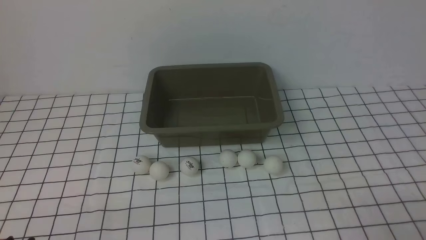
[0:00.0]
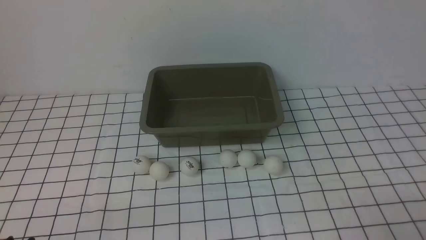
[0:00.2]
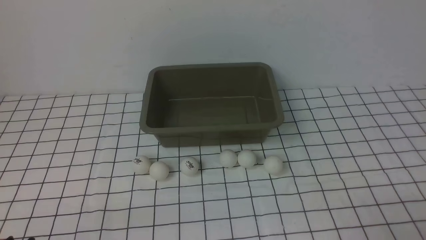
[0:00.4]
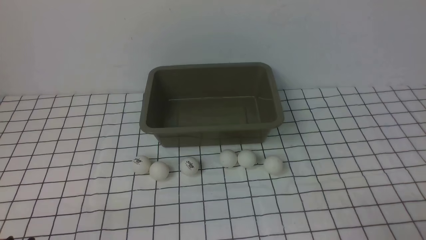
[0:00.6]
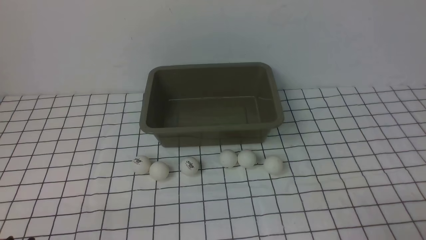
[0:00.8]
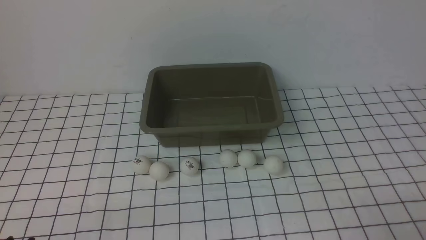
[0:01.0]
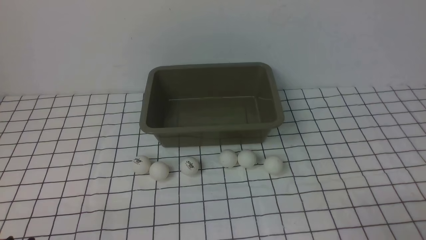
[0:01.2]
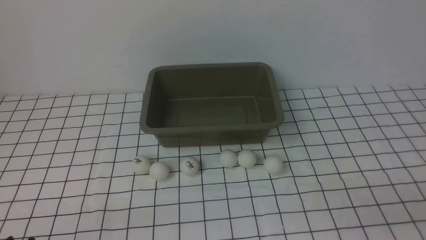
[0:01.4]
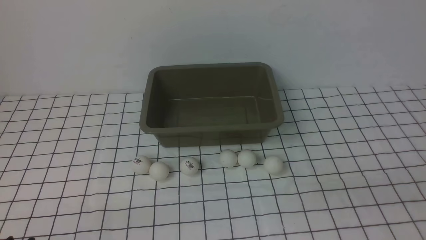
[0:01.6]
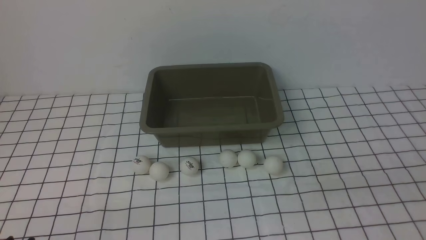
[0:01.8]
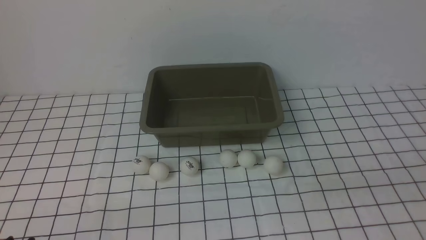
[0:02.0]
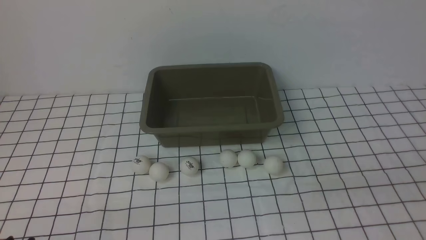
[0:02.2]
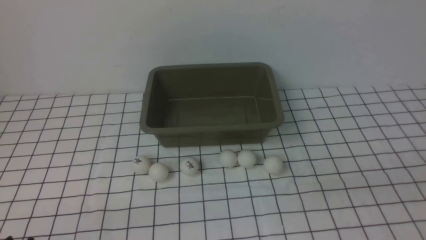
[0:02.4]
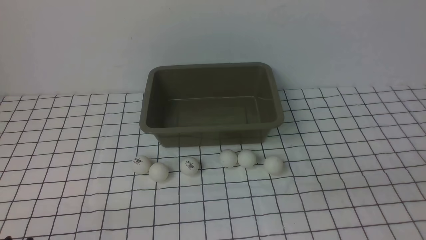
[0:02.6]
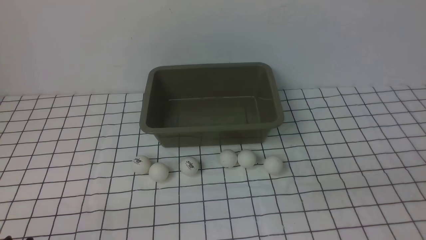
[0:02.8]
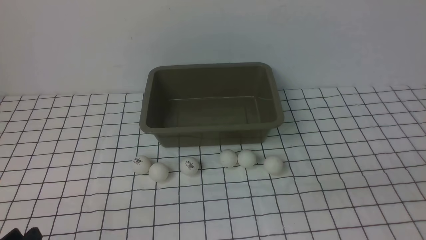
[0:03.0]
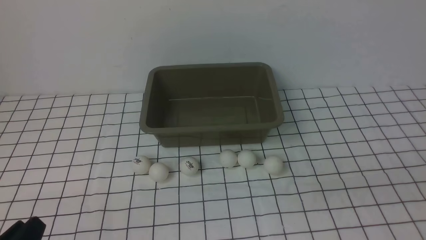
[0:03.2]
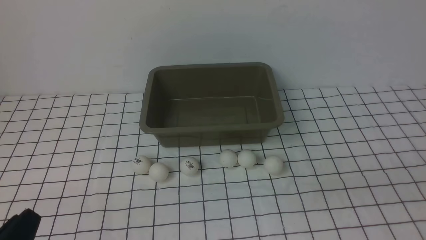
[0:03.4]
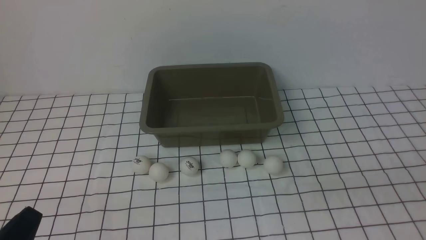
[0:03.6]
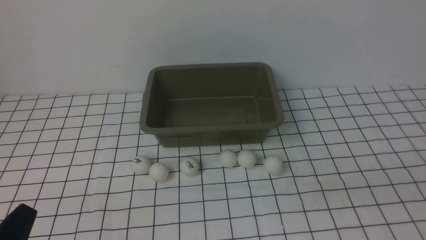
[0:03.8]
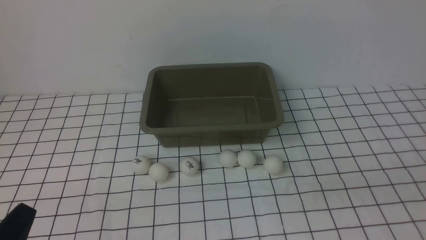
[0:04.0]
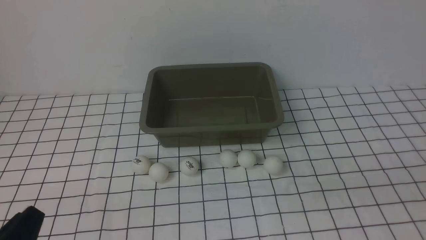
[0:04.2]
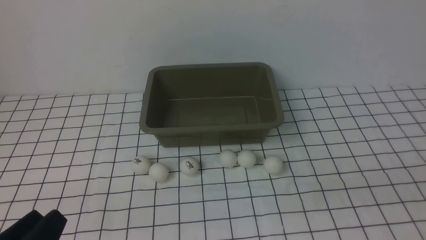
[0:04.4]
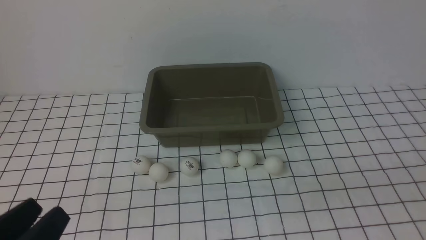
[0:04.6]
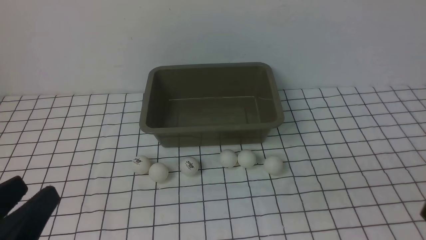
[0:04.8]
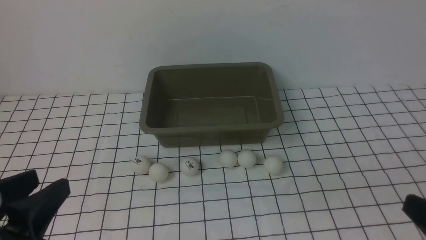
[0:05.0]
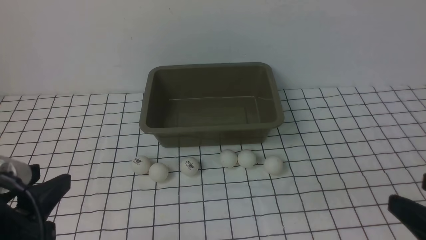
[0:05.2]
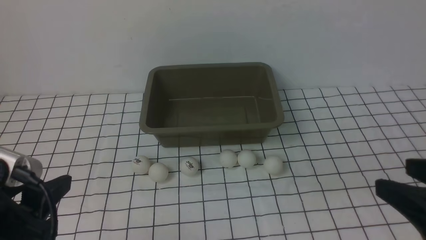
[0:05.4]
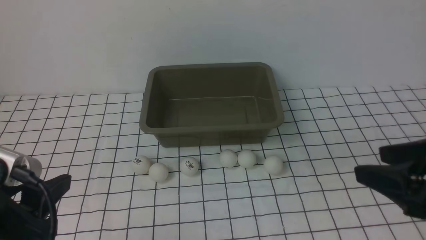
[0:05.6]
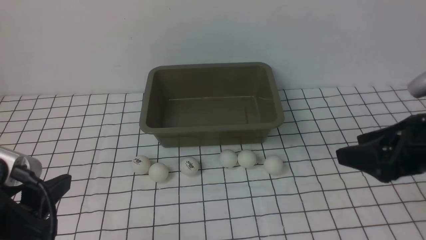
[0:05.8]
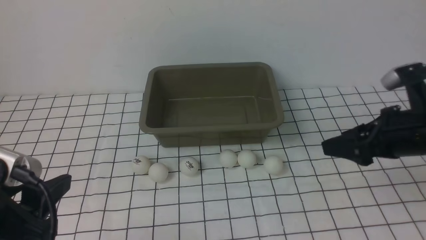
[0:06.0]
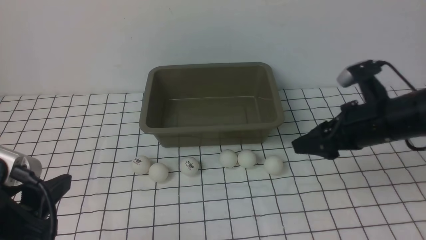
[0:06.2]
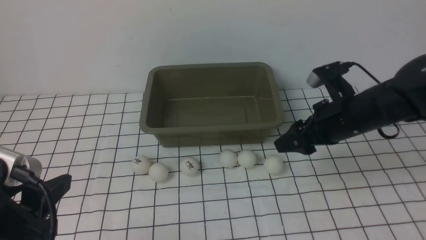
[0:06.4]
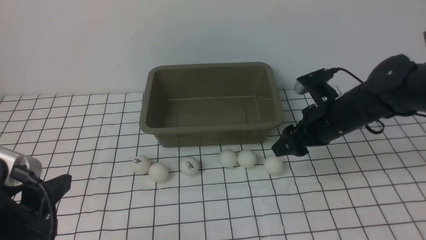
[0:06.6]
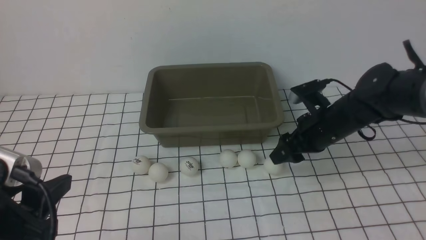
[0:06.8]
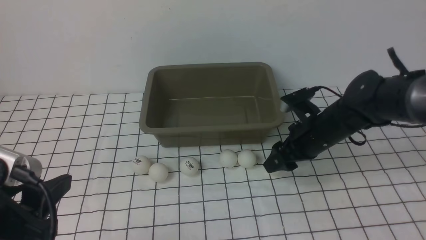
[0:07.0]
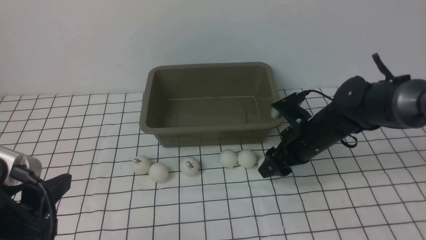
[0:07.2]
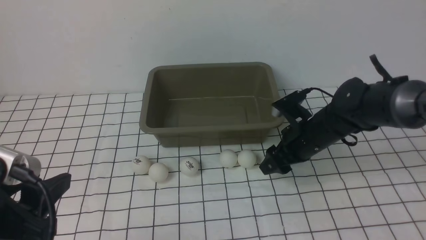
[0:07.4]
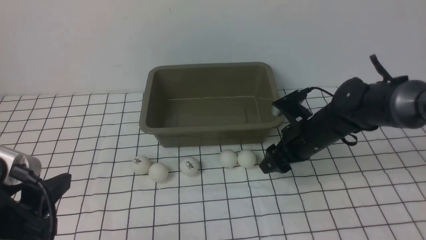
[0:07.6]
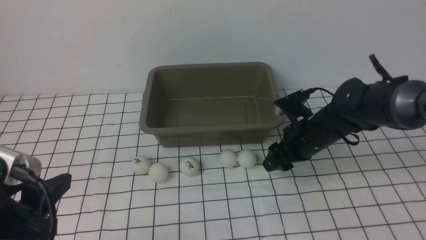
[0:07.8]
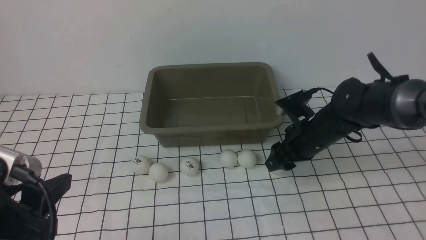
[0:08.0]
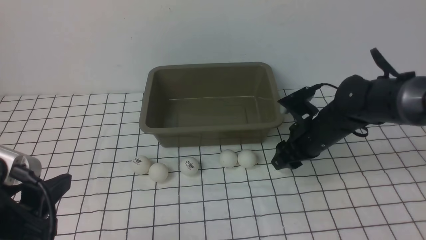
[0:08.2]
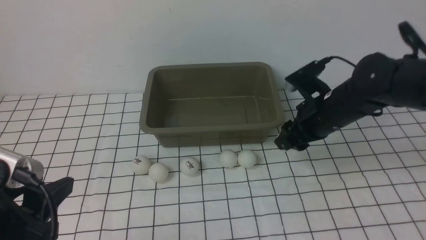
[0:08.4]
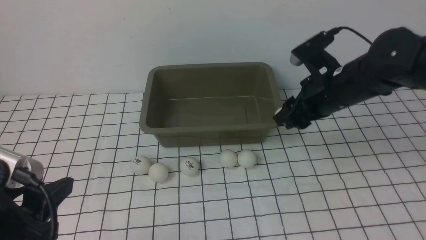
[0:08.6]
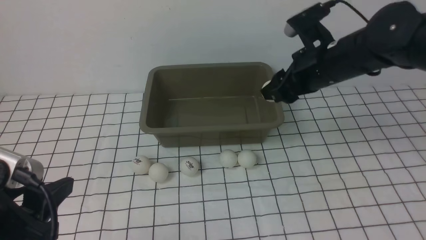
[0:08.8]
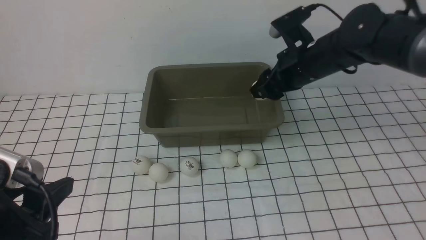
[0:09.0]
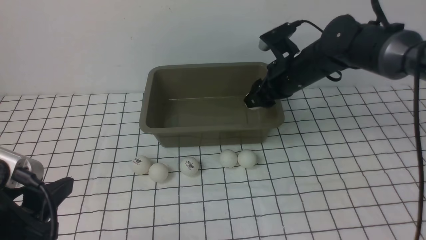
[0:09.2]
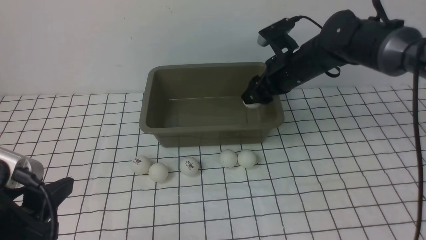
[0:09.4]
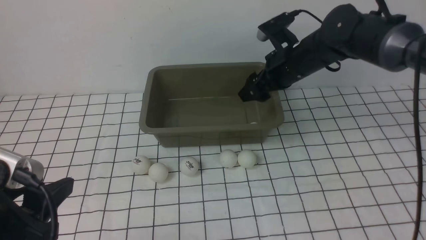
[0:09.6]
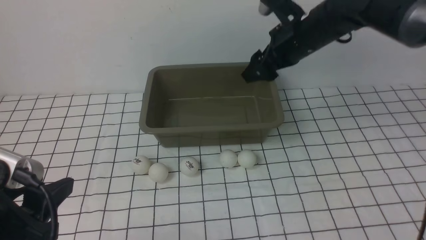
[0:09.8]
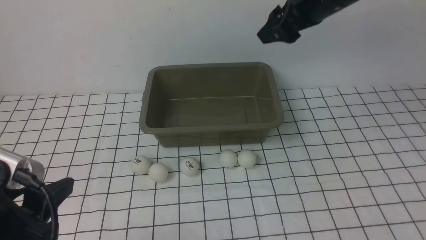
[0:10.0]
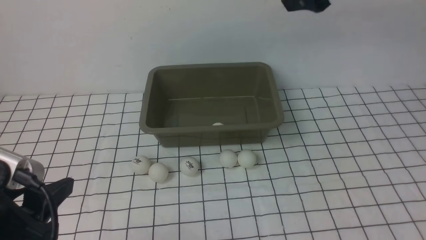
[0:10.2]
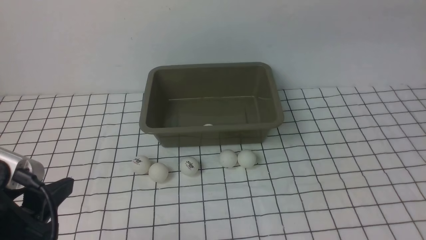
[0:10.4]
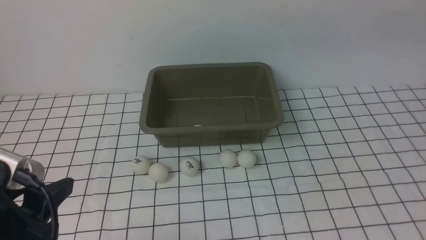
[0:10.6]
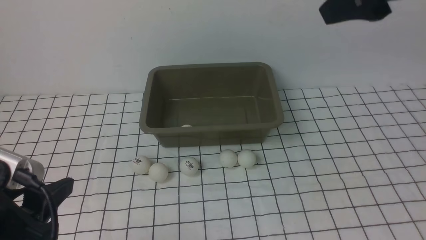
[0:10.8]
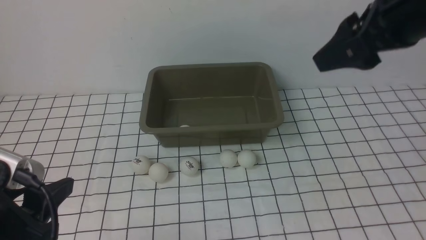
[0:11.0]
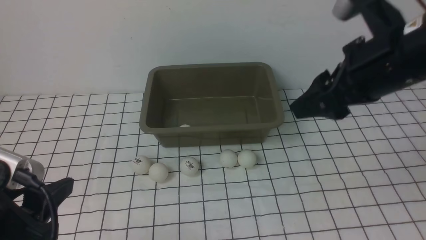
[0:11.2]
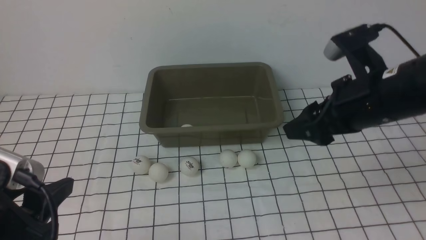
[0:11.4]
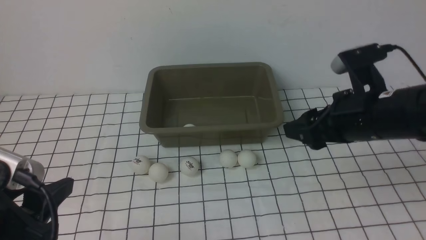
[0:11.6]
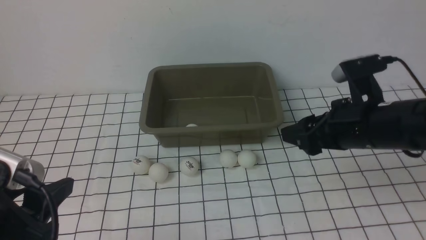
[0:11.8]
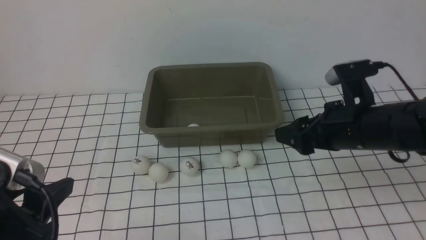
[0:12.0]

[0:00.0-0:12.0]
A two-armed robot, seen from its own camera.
Step, 0:00.0 to 0:08.2: use the right arm to clamp the table tennis ball closest to it.
Step, 0:08.6 to 0:09.6: use the right arm to put the table tennis ball into the box.
0:04.4 to 0:06.0: The right gripper moves forward, about 20 cm, while the left gripper shifts roughly 10 cm forward and upward.
0:06.0 to 0:07.6: The right gripper moves downward, forward and to the left, about 20 cm.
0:07.6 to 0:09.0: The right gripper is displaced upward by some 10 cm.
0:09.0 to 0:10.4: The right gripper is displaced upward and backward by approximately 25 cm.
0:10.4 to 0:12.0: The right gripper shifts about 25 cm downward.

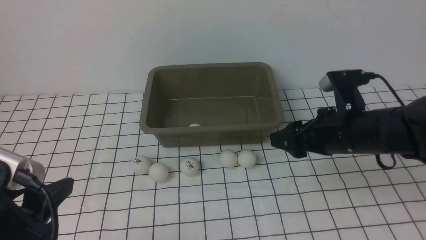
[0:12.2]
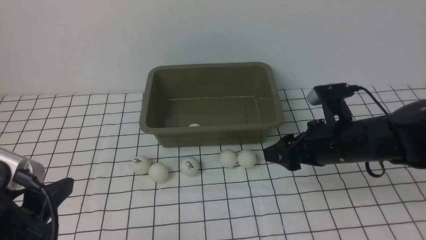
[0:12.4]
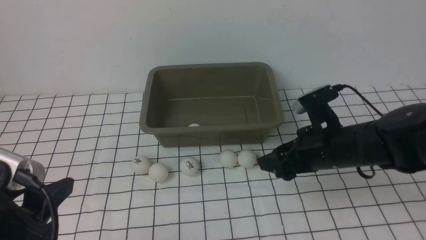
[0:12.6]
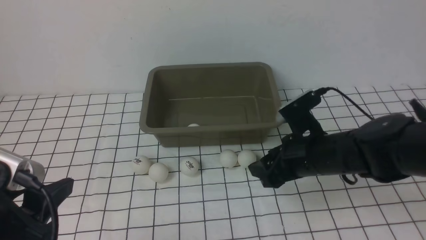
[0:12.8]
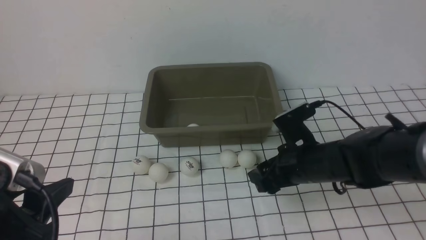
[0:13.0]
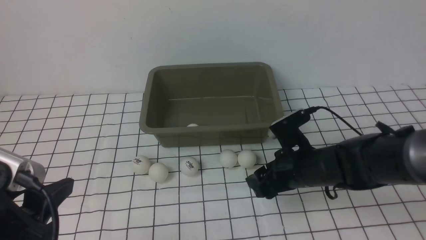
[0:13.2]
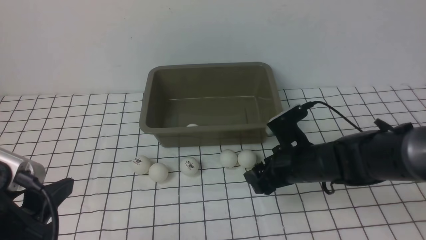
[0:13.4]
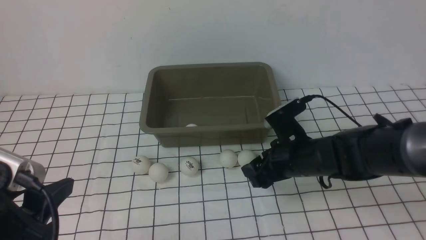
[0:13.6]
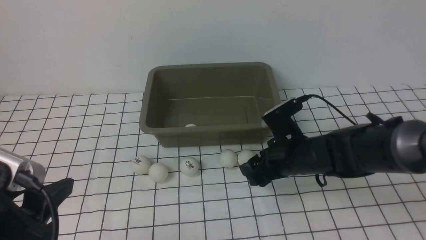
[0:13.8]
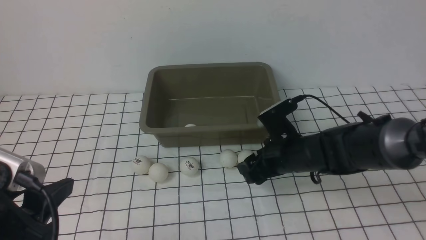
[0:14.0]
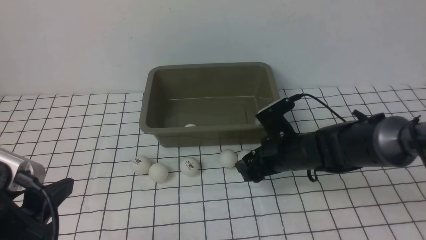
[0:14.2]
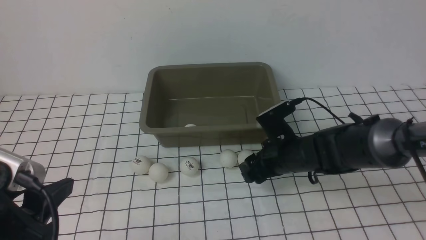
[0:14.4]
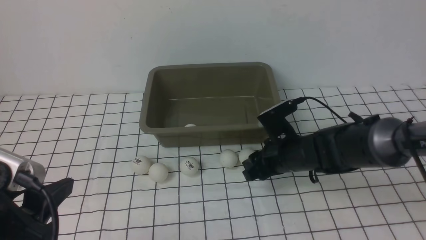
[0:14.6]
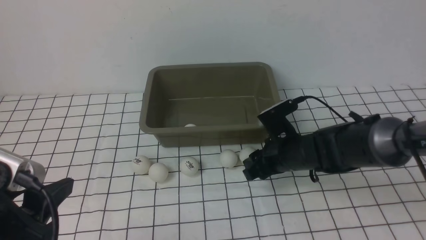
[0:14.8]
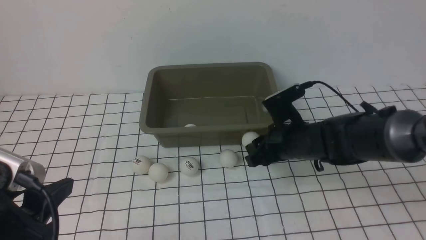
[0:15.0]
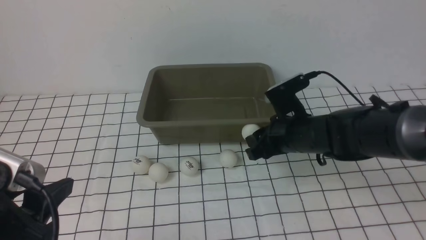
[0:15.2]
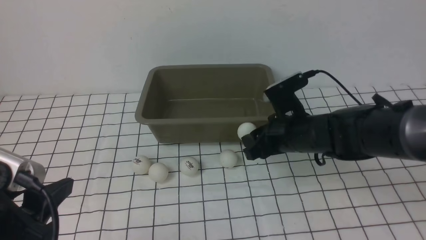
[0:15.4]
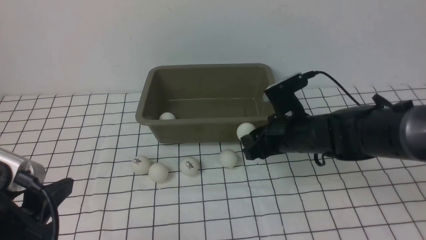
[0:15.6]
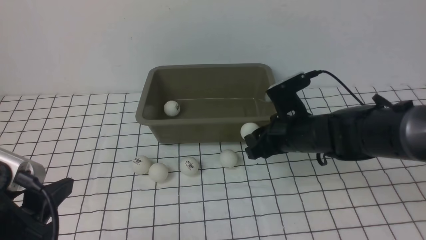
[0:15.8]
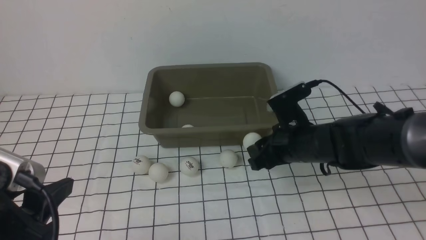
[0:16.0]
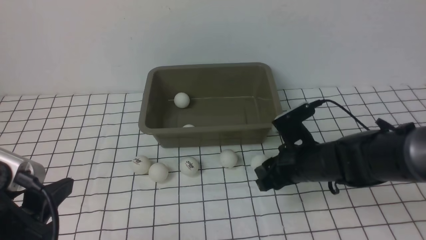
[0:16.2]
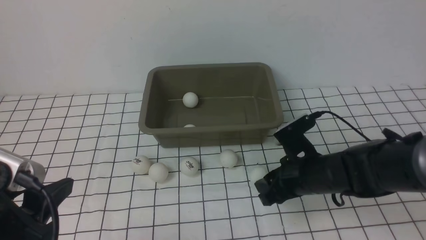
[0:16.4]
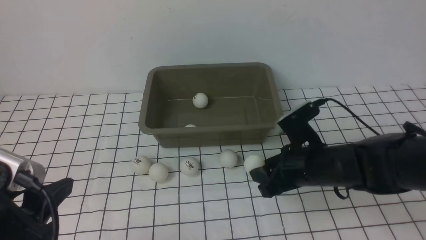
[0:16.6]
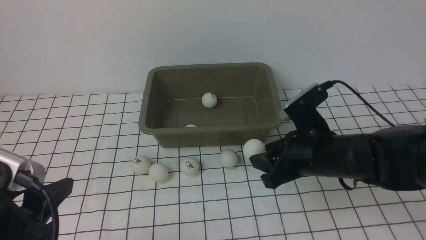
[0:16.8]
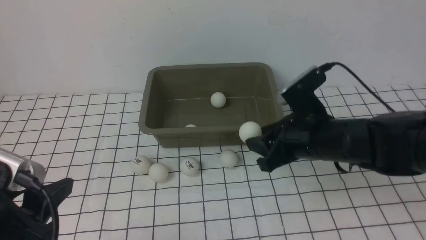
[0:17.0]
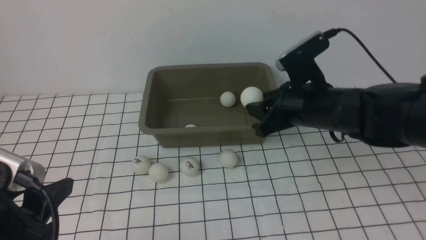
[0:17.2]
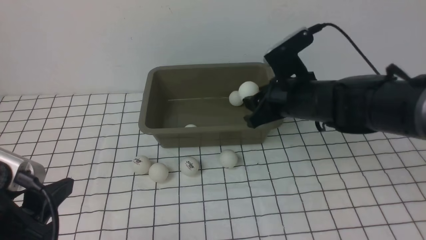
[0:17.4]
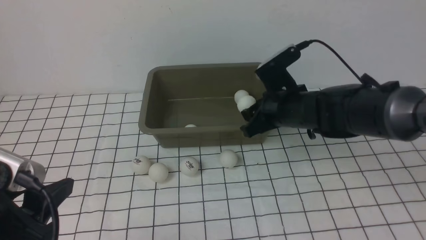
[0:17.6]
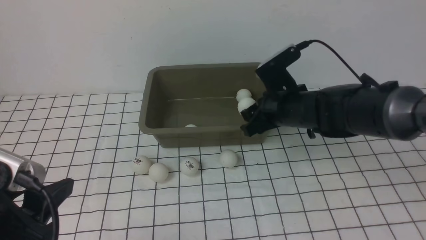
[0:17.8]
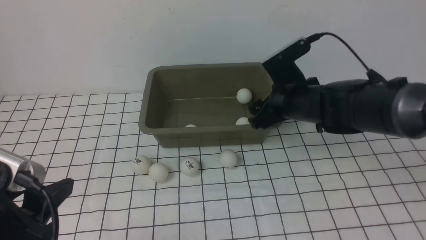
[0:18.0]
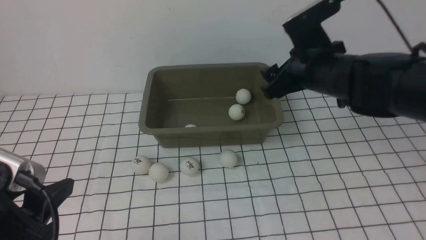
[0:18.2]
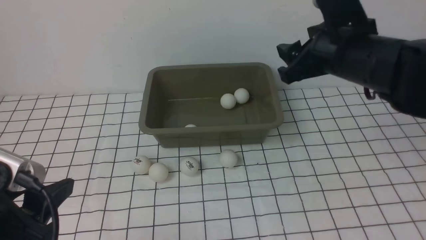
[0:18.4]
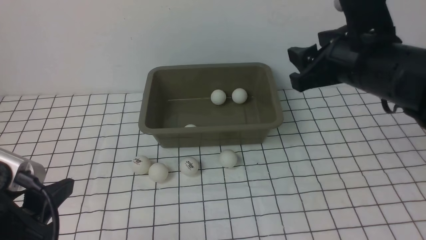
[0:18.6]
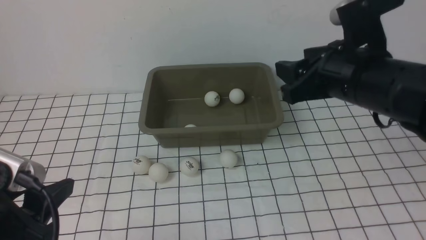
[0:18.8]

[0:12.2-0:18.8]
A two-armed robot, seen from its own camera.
Step, 0:12.2 to 0:15.0: use the right arm to clamp the table tennis ball closest to it.
Step, 0:15.4 to 0:18.0: use the right arm to put the table tennis ball into the box.
0:12.2 to 0:13.8: The right gripper shifts approximately 10 cm downward and to the left.
0:13.8 to 0:15.4: There are only small adjustments of the grippers.
0:15.4 to 0:17.2: The right gripper shifts about 5 cm upward.
0:17.2 to 0:18.8: The right gripper moves upward, approximately 10 cm.
